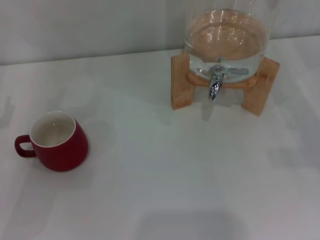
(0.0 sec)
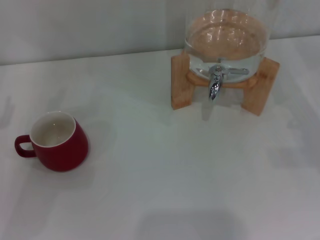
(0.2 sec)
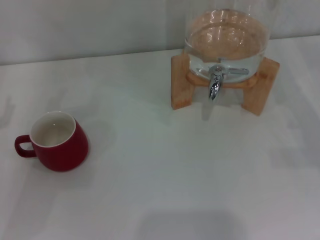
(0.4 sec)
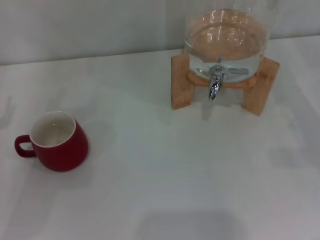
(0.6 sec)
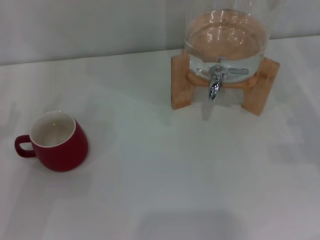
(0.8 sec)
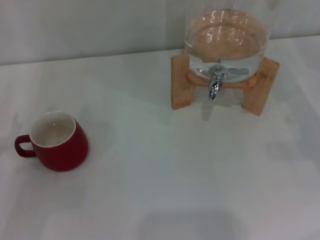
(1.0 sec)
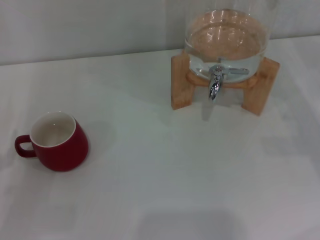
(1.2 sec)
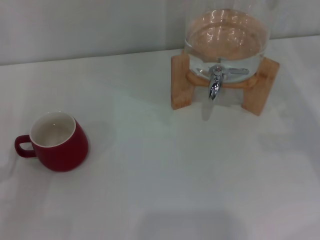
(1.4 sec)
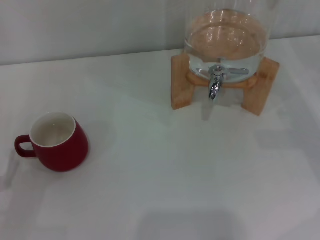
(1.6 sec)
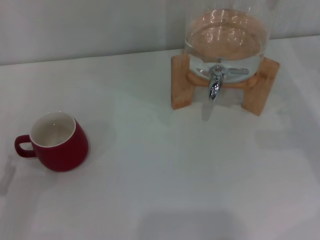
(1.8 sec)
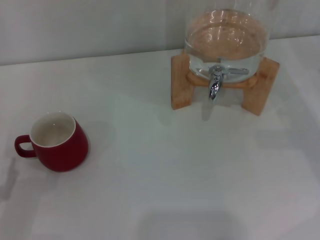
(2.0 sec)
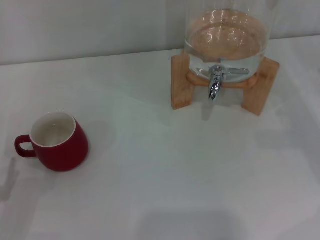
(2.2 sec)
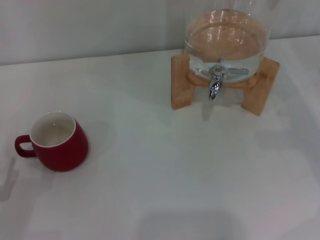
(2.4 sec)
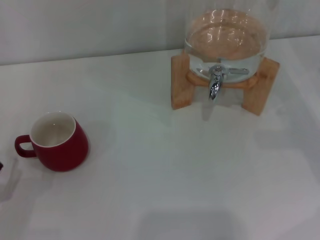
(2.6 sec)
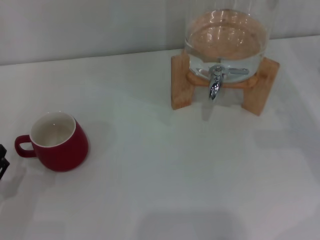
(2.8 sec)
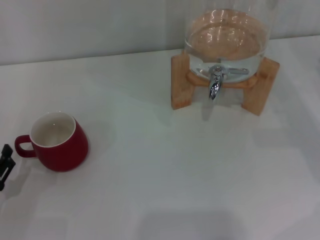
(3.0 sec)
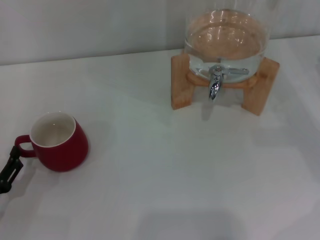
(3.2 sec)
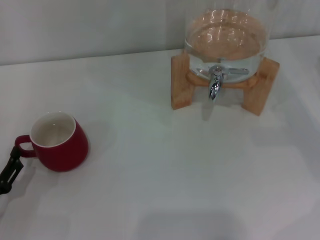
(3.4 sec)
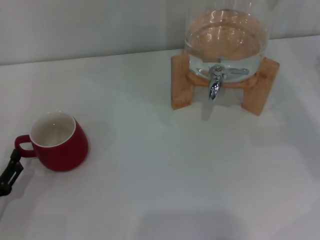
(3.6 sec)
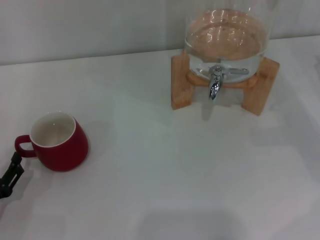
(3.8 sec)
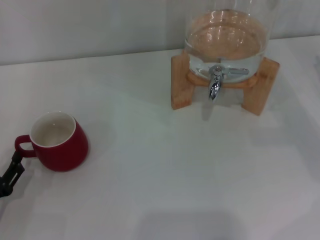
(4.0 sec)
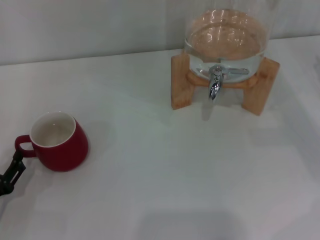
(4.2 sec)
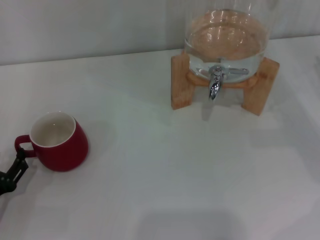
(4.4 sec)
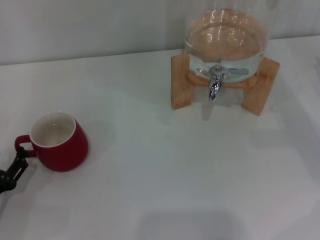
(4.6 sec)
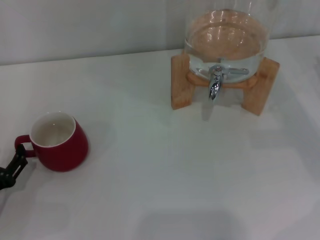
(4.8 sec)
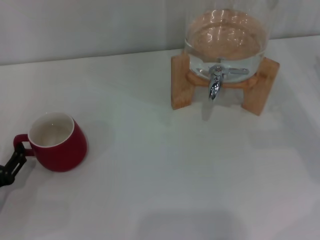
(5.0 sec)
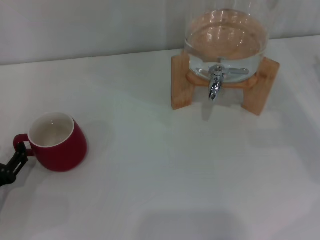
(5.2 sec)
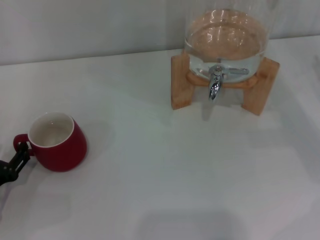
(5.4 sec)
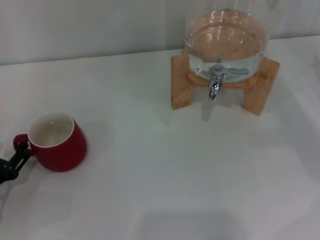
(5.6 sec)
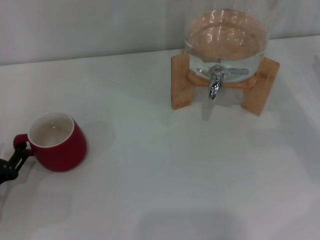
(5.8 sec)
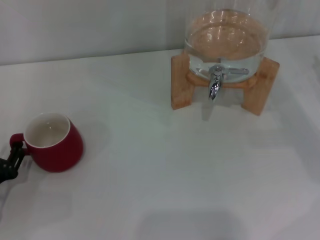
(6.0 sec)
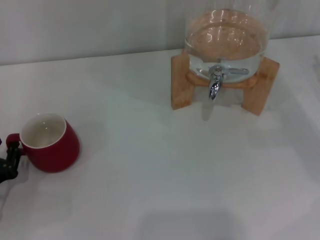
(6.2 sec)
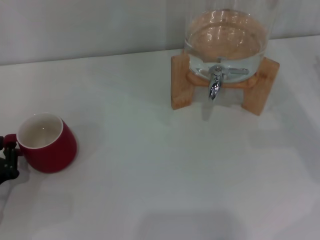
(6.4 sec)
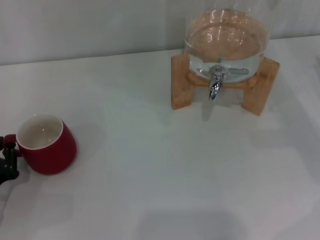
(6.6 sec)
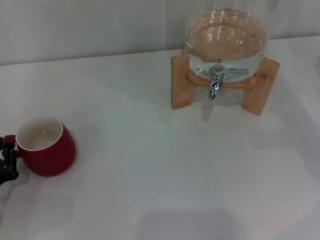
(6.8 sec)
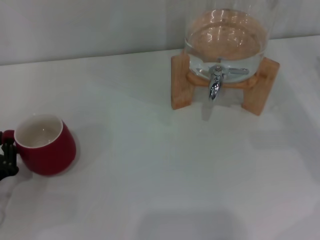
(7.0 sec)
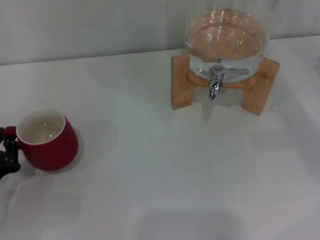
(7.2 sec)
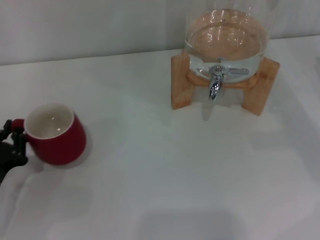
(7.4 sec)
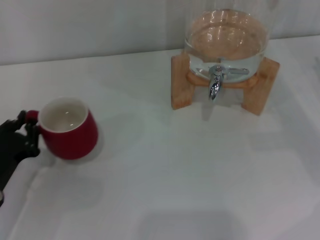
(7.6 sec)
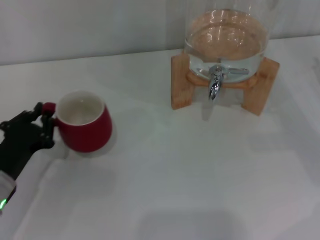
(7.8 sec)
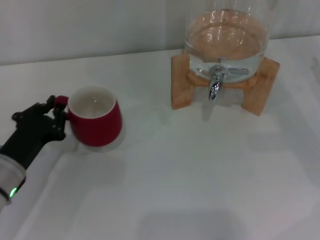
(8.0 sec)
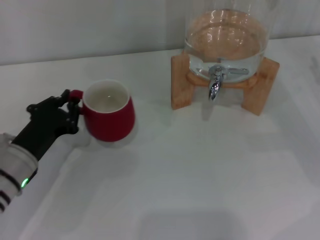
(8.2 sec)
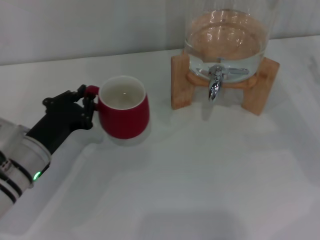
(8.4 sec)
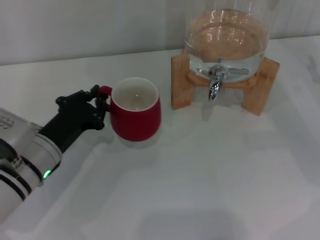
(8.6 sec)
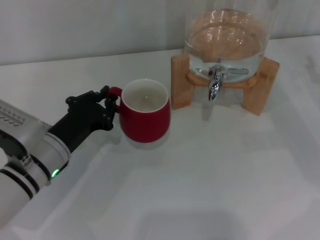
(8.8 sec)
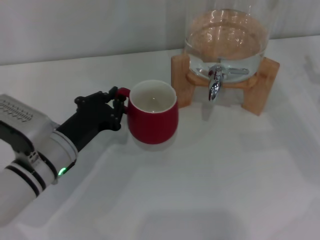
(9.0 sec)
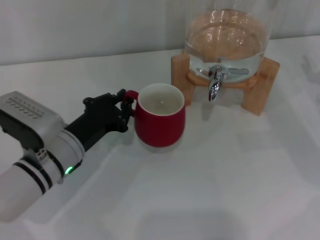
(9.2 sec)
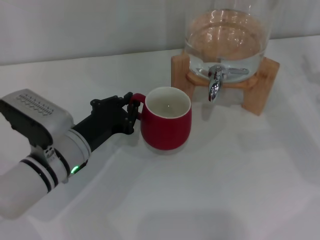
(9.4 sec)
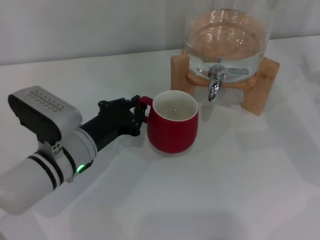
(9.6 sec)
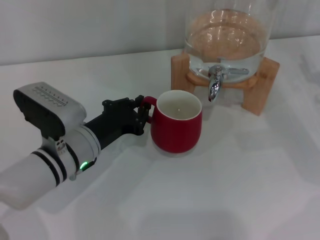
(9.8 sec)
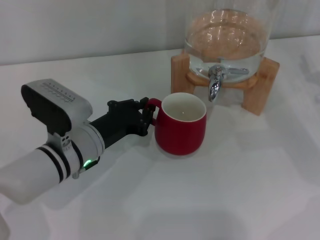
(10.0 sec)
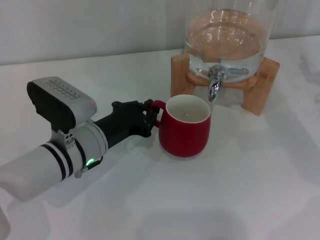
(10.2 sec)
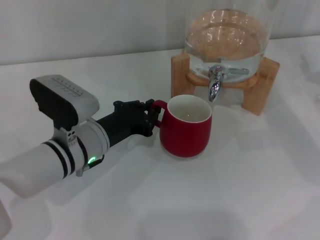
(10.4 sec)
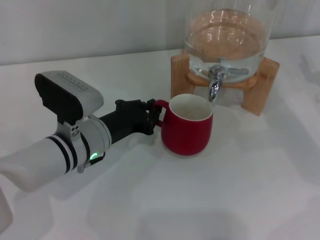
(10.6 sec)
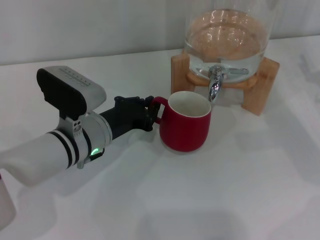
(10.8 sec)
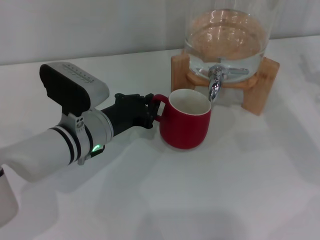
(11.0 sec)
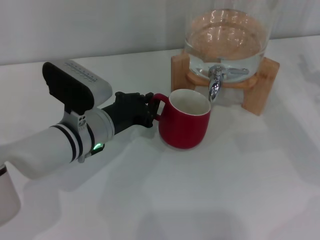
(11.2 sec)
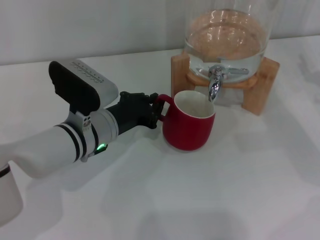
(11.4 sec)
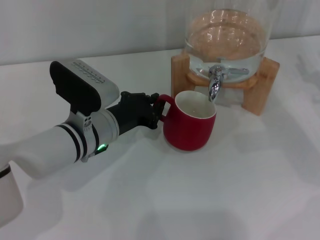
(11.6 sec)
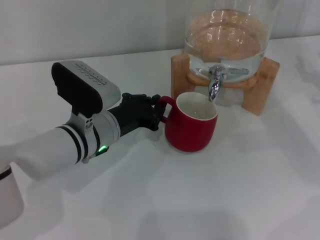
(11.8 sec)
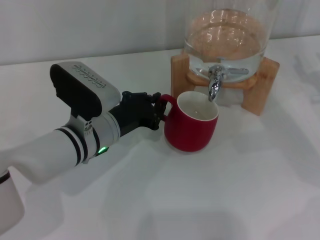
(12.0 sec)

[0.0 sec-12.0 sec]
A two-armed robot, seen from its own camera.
Task of the whole recording: the left gripper pick up the red cup and place it horizontally under the faucet, the right gripper turn on the faucet to fill the cup, and then turn off the faucet.
3.0 sec to 6.0 sec: The grippers move only a little.
6.0 sec to 7.6 sec: The left gripper closes.
7.6 sec to 9.0 sec: The left gripper heads to the right and forward, covering about 10 cm.
9.0 sec to 10.4 sec: The grippers move only a little.
10.4 sec to 12.0 sec: The grippers stay close to where they were, moving slightly.

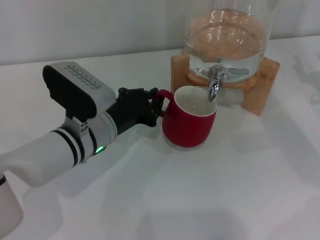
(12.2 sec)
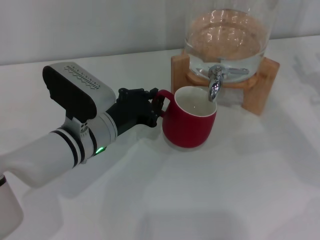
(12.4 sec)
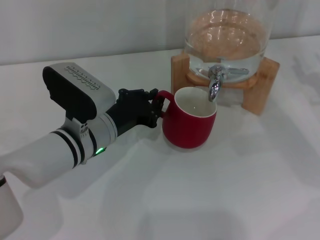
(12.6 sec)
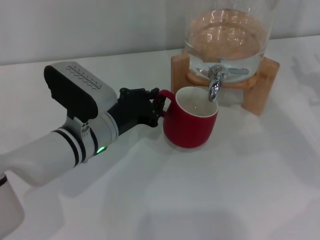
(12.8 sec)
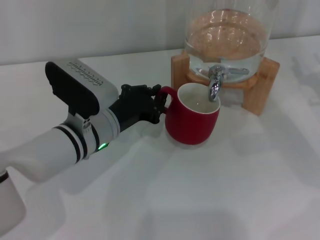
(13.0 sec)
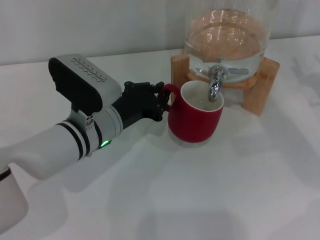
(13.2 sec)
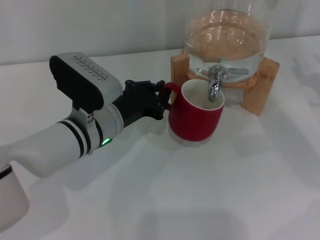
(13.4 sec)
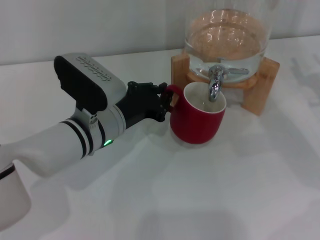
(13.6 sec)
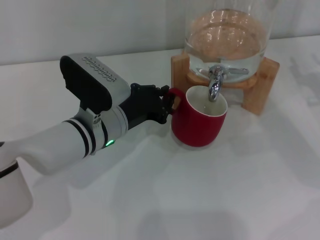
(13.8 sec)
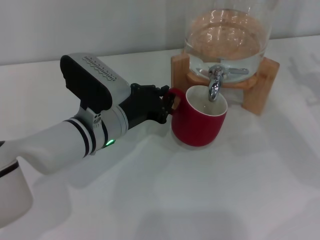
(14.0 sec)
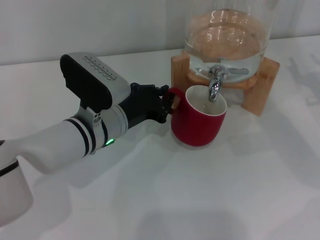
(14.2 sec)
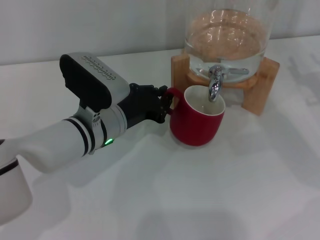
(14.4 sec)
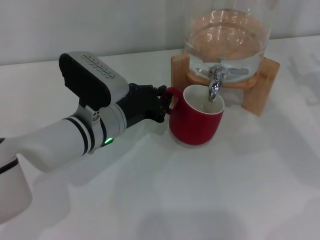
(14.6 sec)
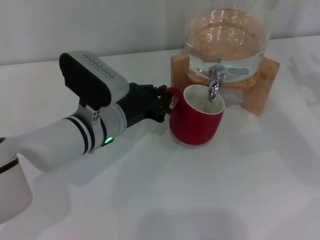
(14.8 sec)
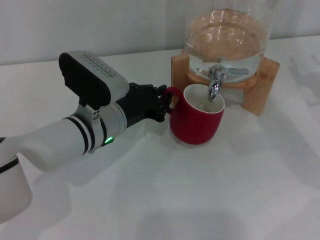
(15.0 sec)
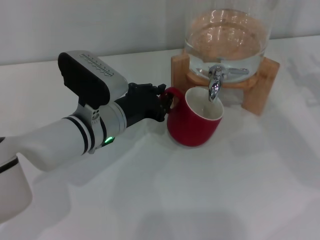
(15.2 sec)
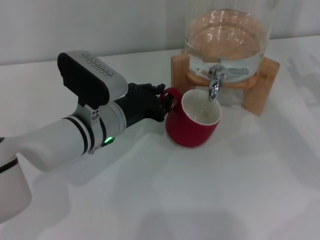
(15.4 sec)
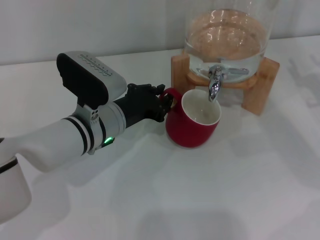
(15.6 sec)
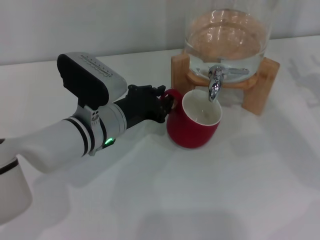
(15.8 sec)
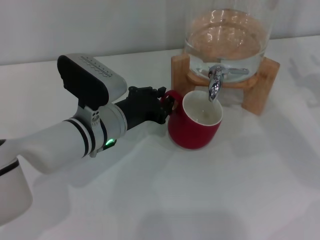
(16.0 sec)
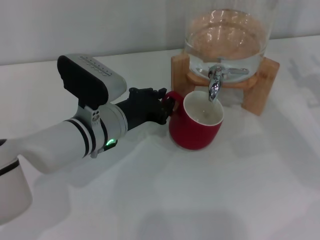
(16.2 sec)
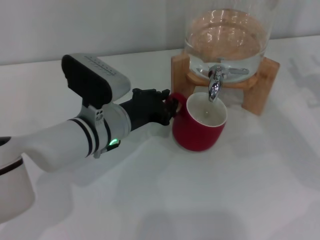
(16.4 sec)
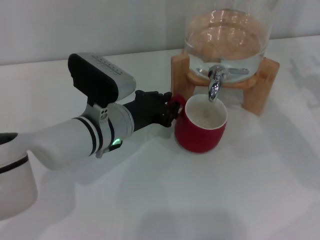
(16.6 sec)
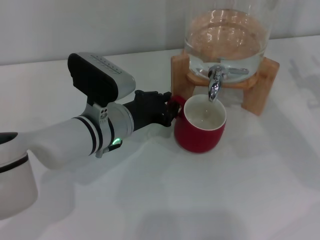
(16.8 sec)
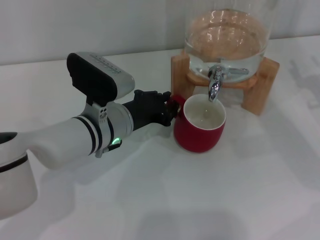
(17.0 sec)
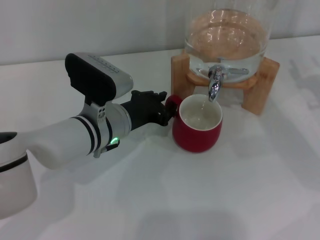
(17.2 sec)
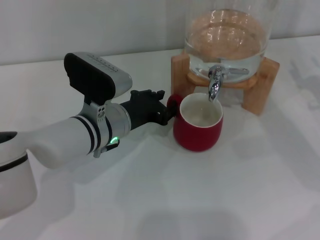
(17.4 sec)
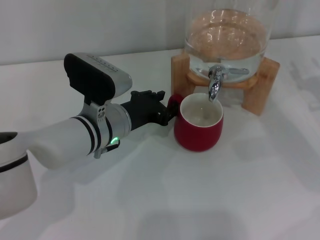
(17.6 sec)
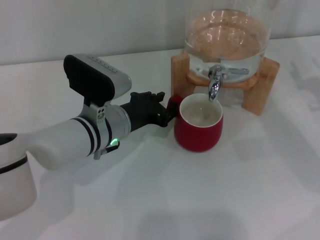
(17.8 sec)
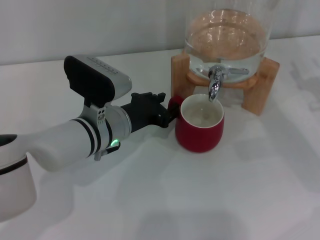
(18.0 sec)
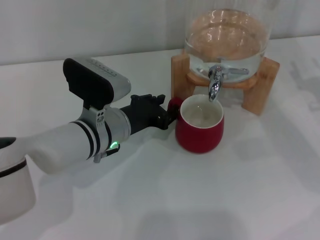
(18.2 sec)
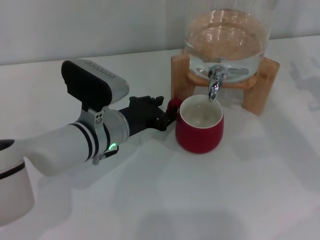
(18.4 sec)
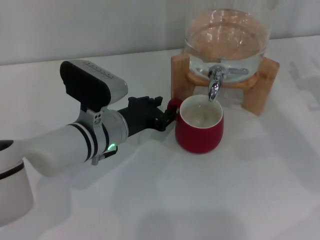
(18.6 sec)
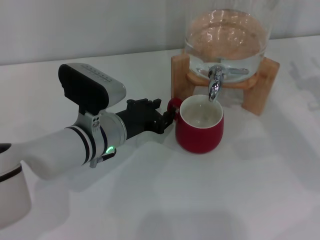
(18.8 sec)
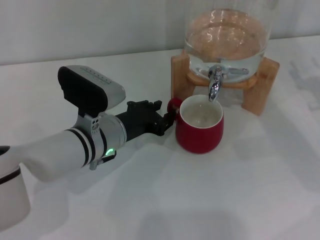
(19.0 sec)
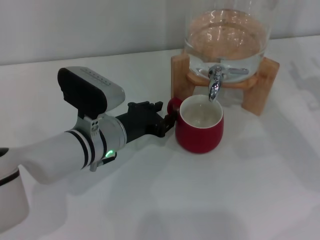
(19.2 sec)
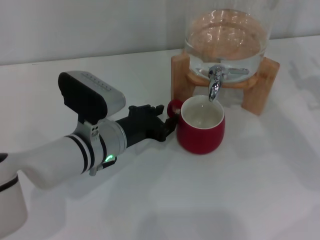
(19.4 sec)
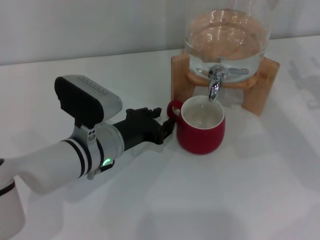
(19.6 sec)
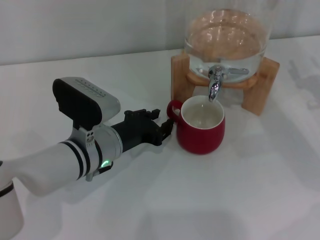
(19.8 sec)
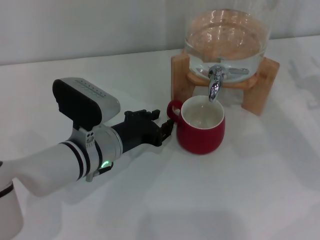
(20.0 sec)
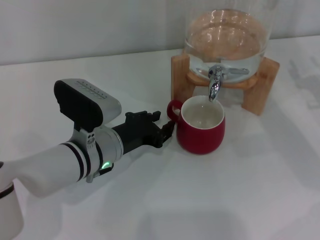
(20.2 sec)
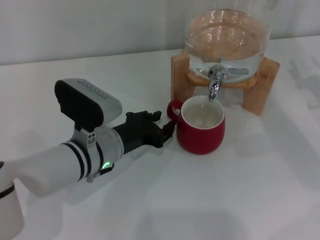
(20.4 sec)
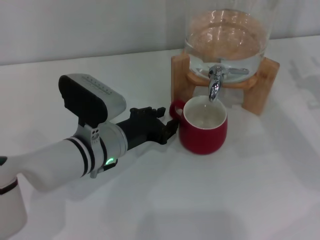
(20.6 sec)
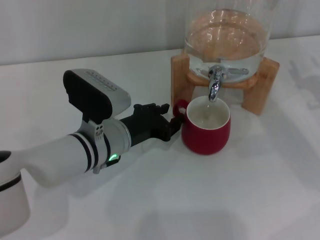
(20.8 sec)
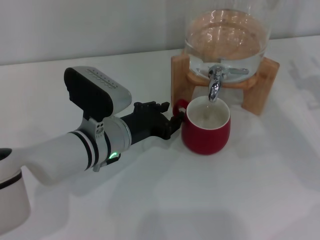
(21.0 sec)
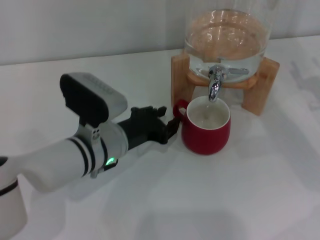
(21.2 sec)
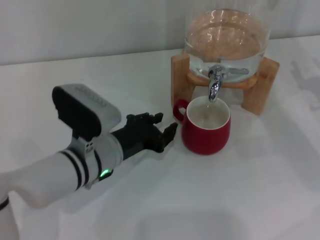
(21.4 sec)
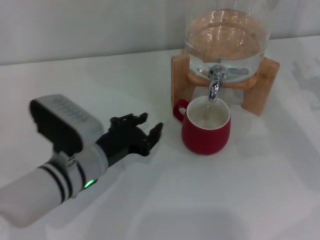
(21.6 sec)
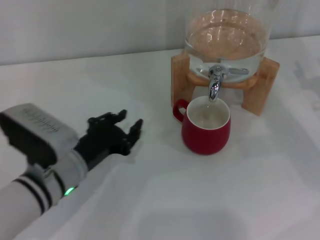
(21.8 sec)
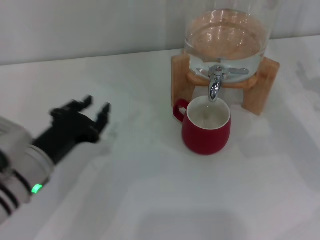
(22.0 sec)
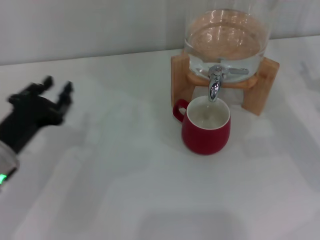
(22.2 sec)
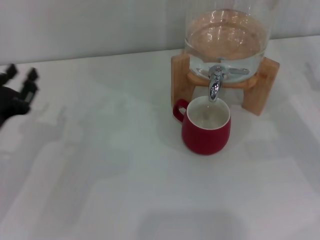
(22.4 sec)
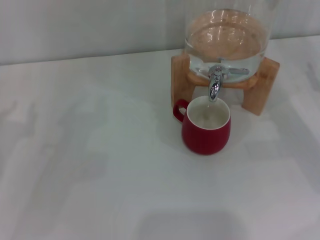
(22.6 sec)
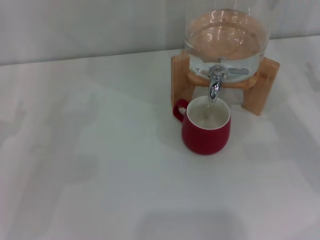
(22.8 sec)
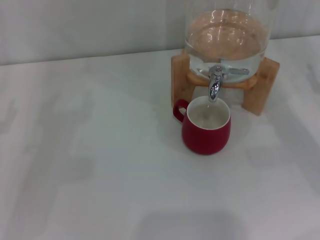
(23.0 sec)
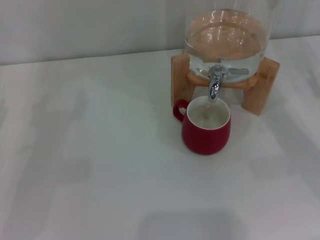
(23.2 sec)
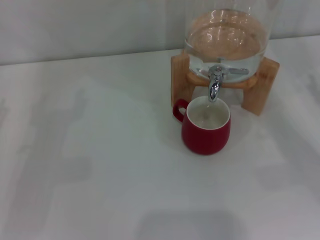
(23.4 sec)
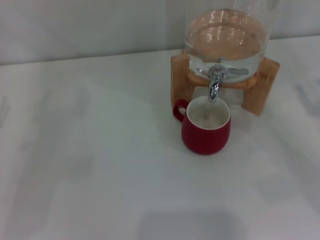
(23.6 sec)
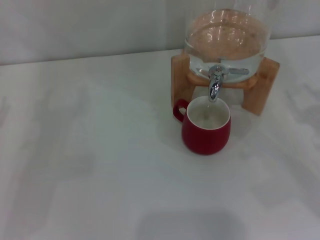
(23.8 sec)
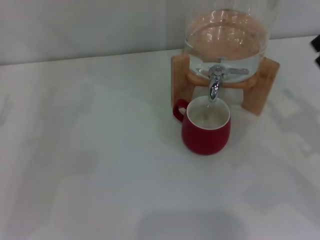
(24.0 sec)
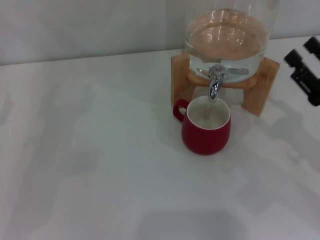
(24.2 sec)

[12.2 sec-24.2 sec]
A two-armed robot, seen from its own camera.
Task of the whole recording: the left gripper pick up the red cup and place it horizontally under the faucet, the right gripper turn on the faucet to fill the cup, and then turn off the faucet.
Step, 12.2 sec to 21.4 sec: Move the cup beneath the water dispenser nozzle with the left gripper.
12.2 sec to 13.8 sec: The grippers stay close to where they were, moving slightly.
13.8 sec to 15.2 sec: Both grippers stay put.
15.2 sec to 16.6 sec: There are only small adjustments of the grippers.
16.6 sec to 18.2 sec: Both grippers stay about where they are.
18.2 sec to 21.2 sec: There are only small adjustments of the grippers.
21.2 sec to 22.6 sec: The left gripper goes some 20 cm to the left.
22.6 sec to 24.2 sec: The right gripper is displaced to the left and backward by some 10 cm.
